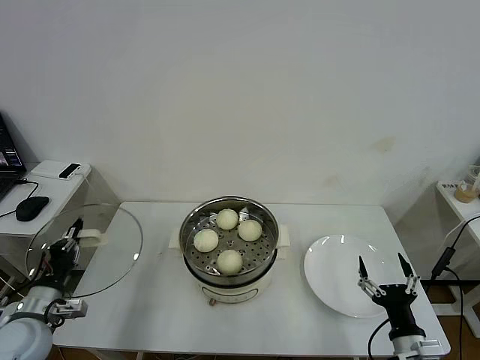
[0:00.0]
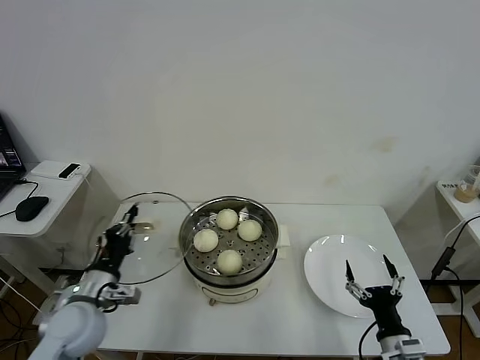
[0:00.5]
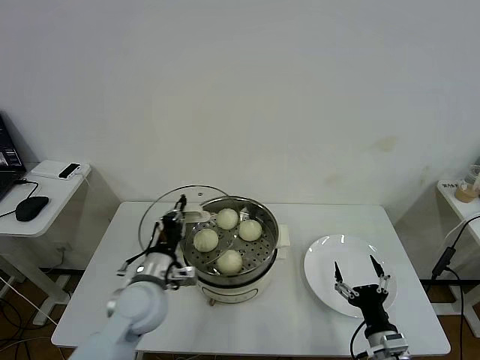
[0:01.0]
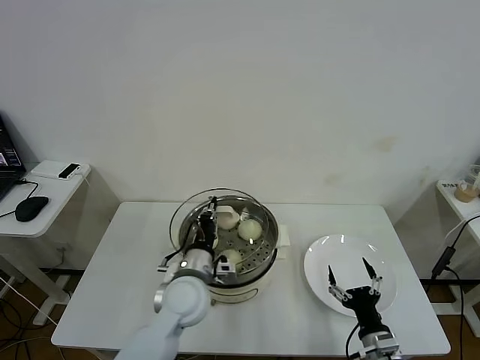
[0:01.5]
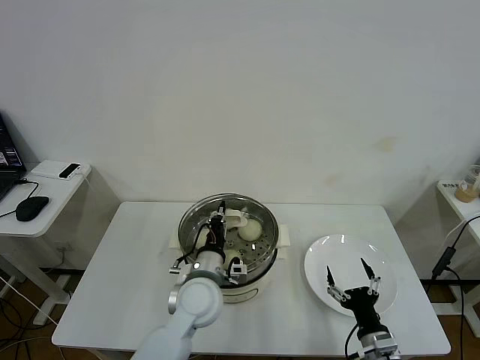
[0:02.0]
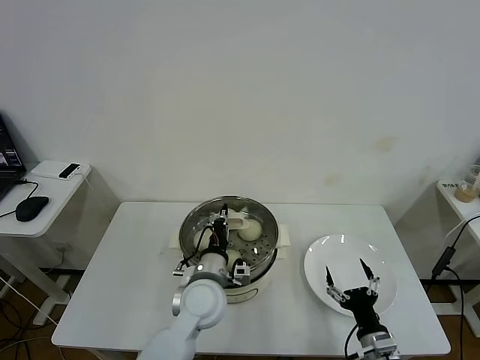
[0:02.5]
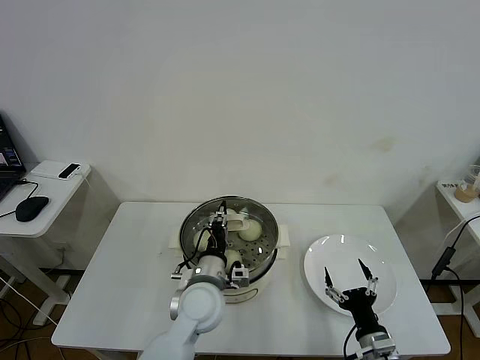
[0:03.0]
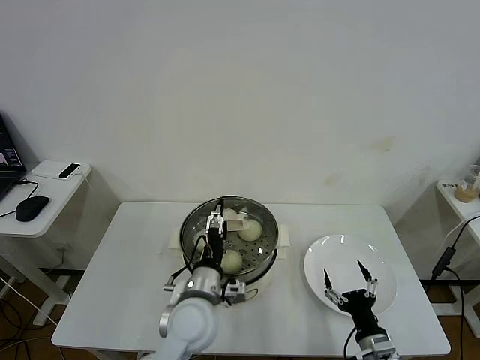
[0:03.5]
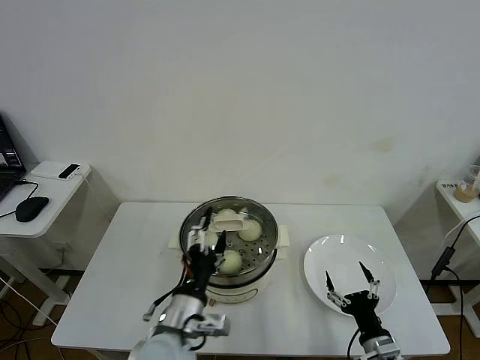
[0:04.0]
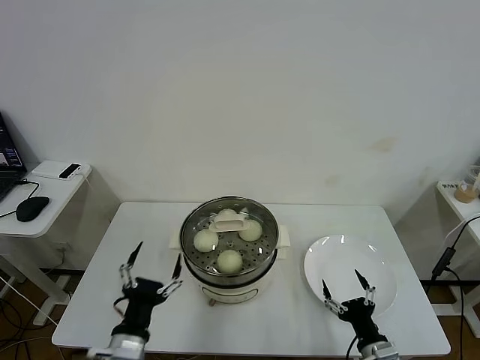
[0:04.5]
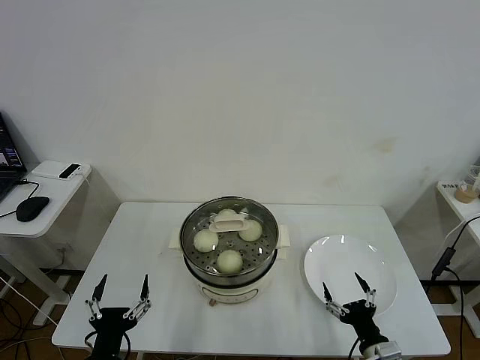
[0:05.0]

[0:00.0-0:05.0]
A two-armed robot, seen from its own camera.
Task of the whole recording: take steamed baozi put them in steamer then cover it.
Step, 0:00.0 to 0:03.0: Place the pot lid on the steamer with left gripper.
0:00.0 to 0:02.5: The right gripper changes place by some 5 cm; the left gripper goes some 35 cm to the right.
0:02.5 to 0:05.0: The left gripper moves backward and to the left, some 25 cm, and opens its fingers.

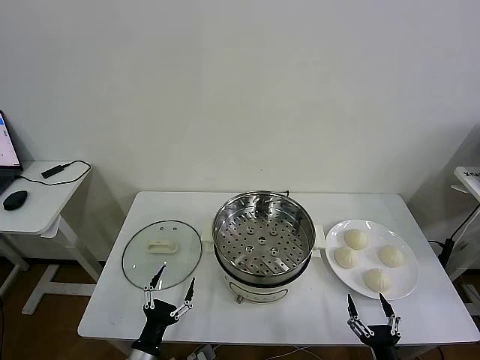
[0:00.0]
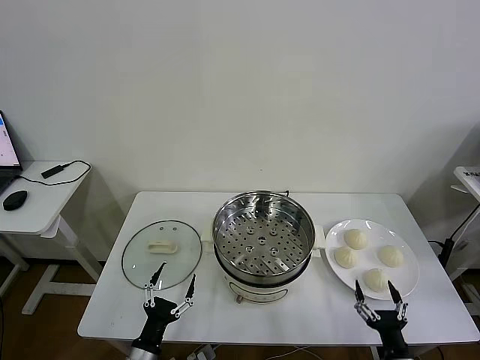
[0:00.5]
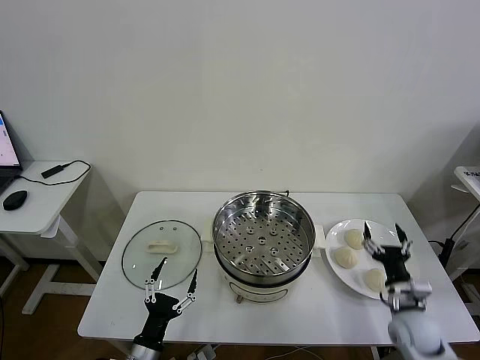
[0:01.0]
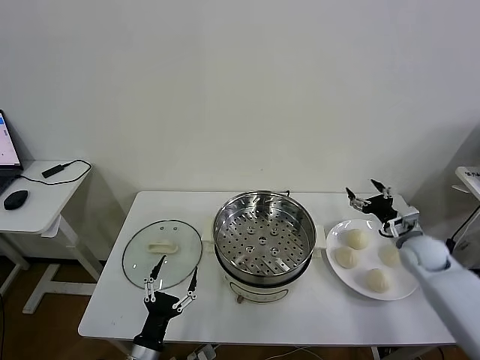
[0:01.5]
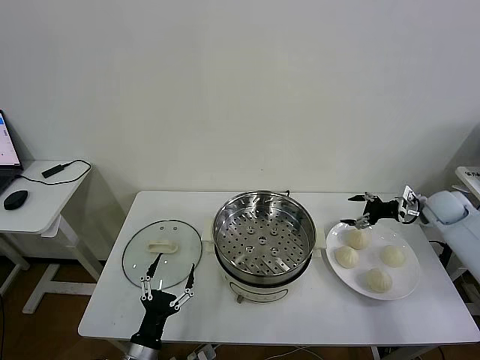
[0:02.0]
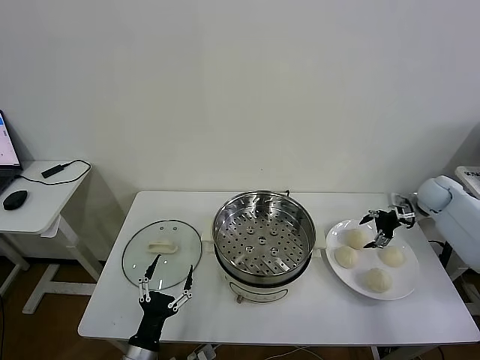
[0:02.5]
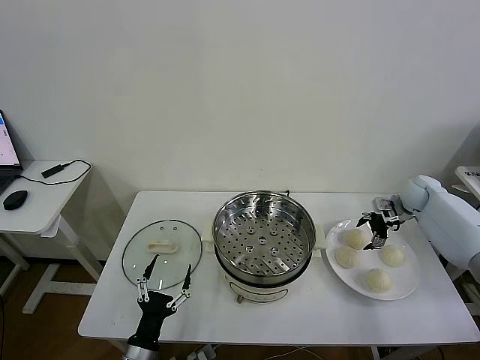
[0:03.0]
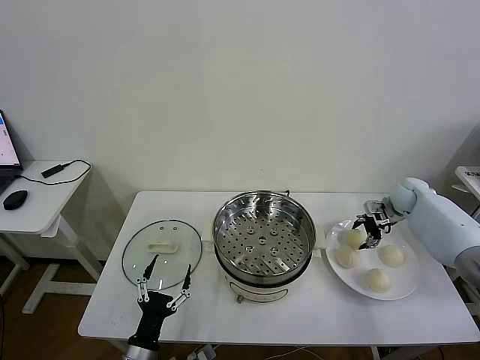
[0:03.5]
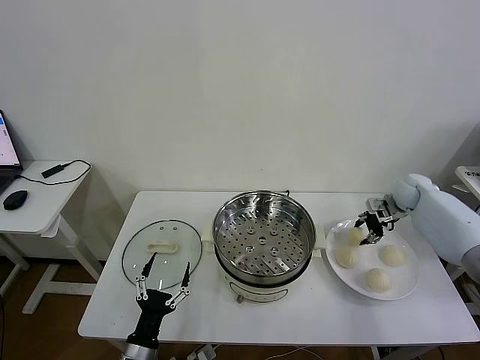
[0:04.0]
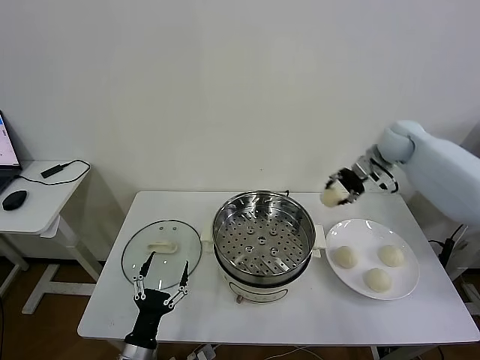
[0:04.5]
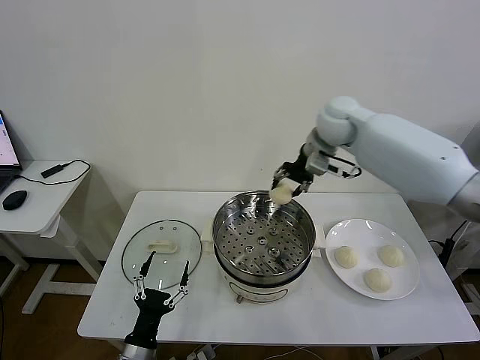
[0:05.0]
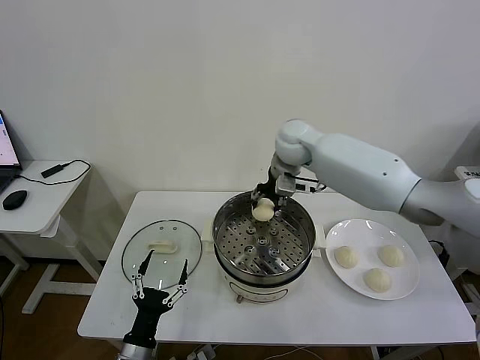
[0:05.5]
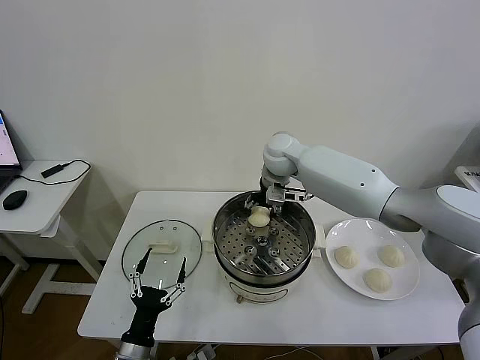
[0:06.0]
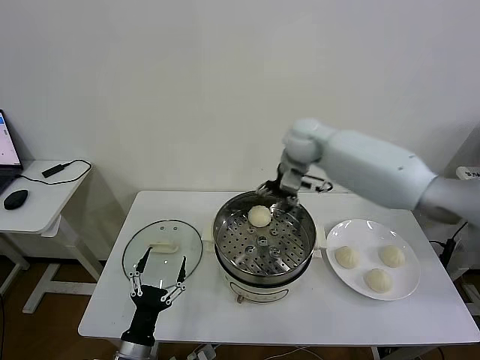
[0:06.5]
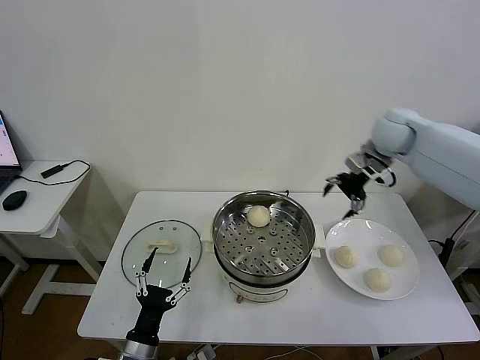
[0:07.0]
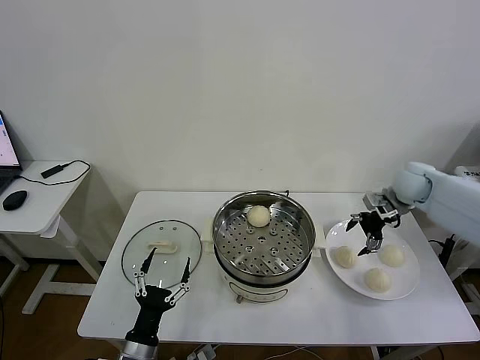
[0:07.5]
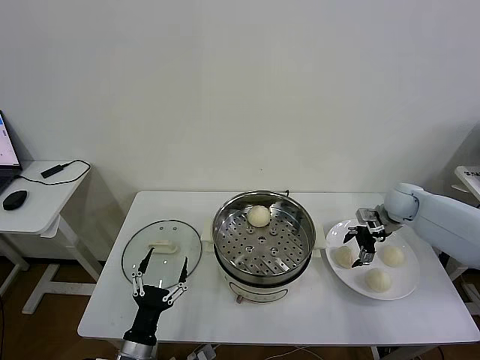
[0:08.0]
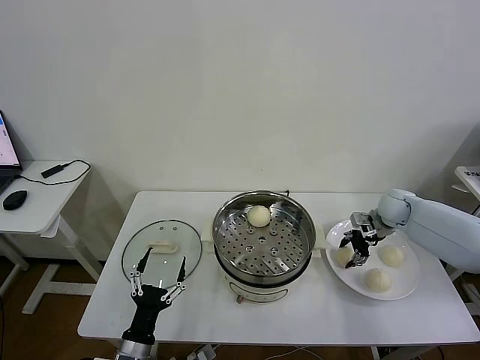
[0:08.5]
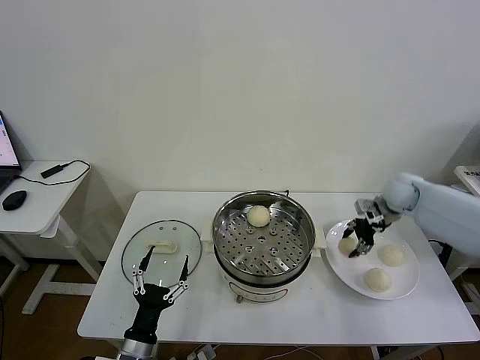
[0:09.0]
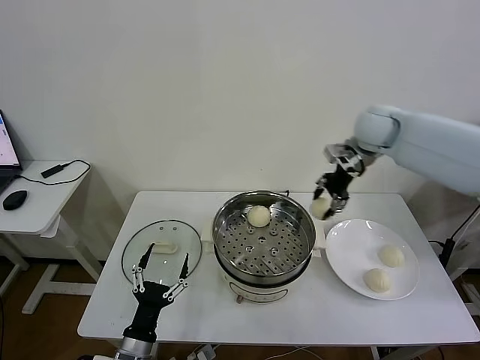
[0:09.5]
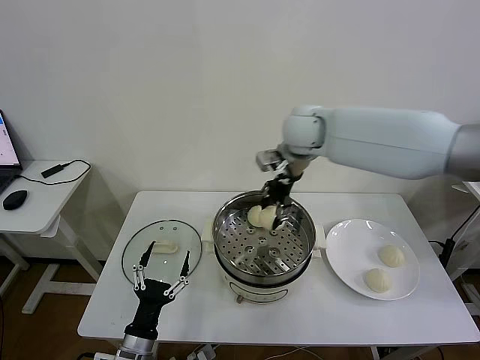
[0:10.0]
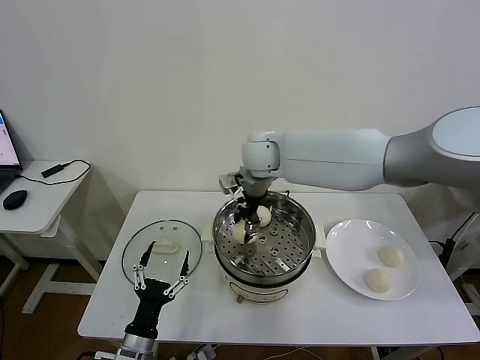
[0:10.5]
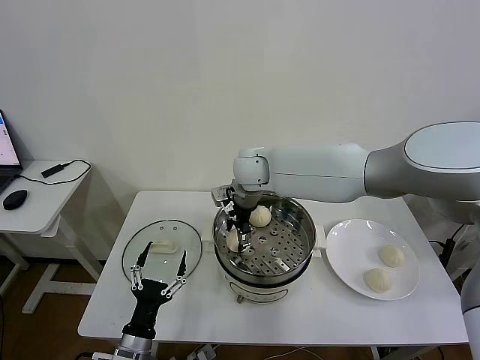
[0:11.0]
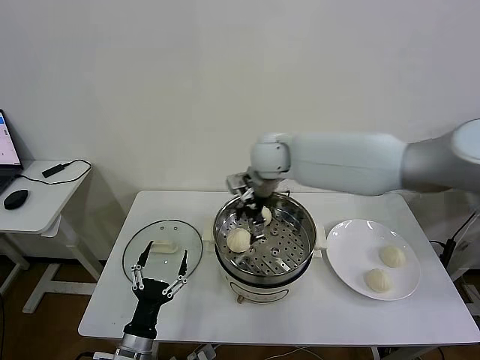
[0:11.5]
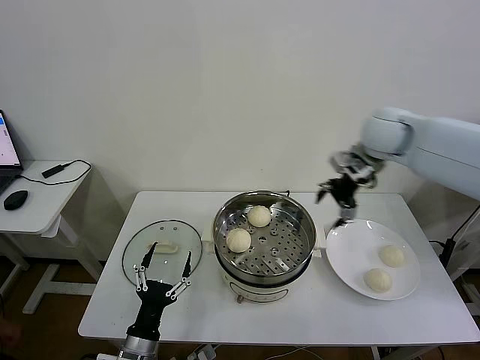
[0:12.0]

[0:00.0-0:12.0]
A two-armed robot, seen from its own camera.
Task of the whole recording: take steamed baozi put them in steamer then cover it.
Step, 0:00.0 to 0:03.5: Grasp the baozi in the plate with right gripper.
Step, 0:04.0 to 0:06.0: Place the baozi on the steamer with right gripper.
Step, 0:06.5 to 0:08.5: Grasp the baozi in the plate with right gripper.
Step, 0:09.0 to 0:11.0: Place the baozi on the steamer with right gripper.
0:02.0 to 0:04.0: The right gripper goes some 10 cm forward and to the left, and closes up.
0:04.0 to 0:06.0: The right gripper goes about 35 cm to the left, and opens.
0:06.0 to 0:08.0: The right gripper goes approximately 30 cm to the right, and opens.
0:08.0 to 0:10.0: The right gripper goes roughly 35 cm to the left and upward, and closes its fingers.
0:10.0 to 0:12.0: The right gripper goes some 20 cm to the right, and opens up.

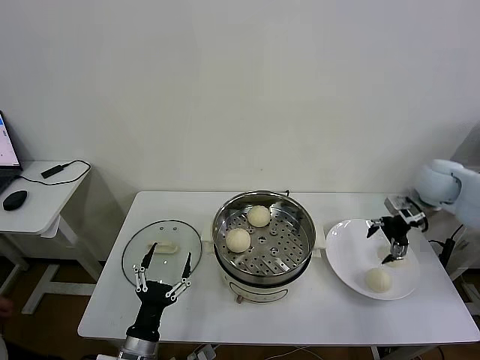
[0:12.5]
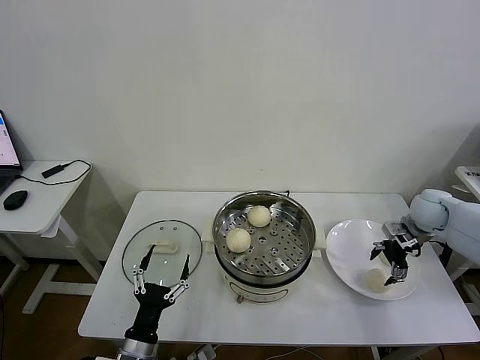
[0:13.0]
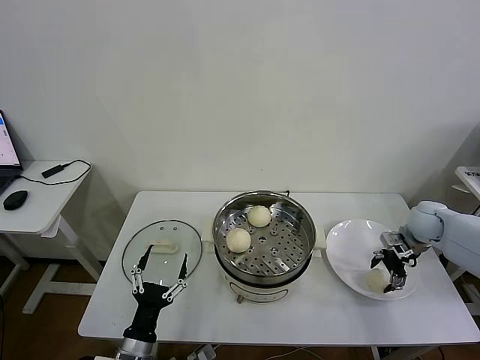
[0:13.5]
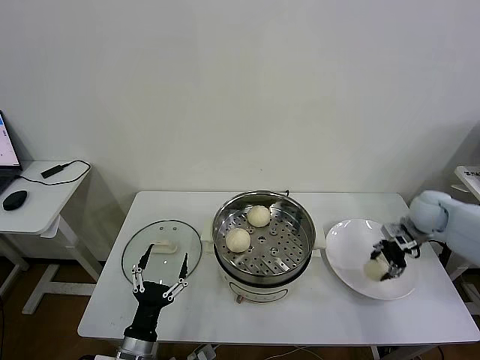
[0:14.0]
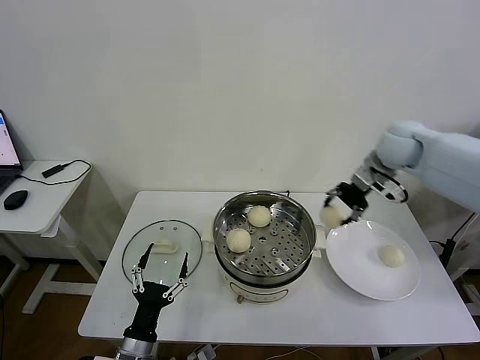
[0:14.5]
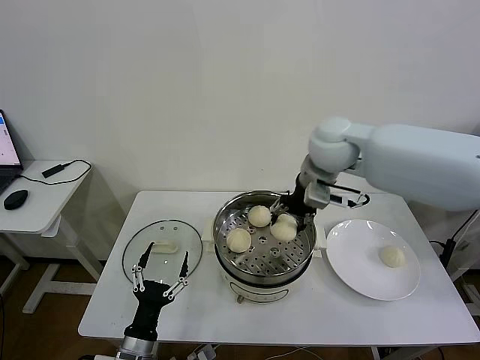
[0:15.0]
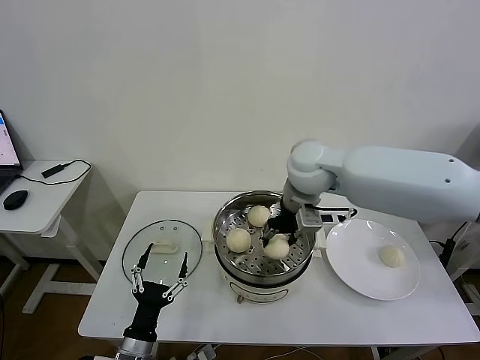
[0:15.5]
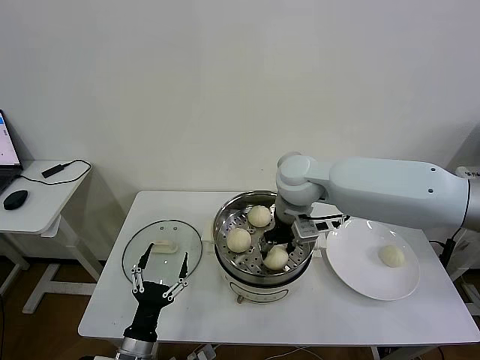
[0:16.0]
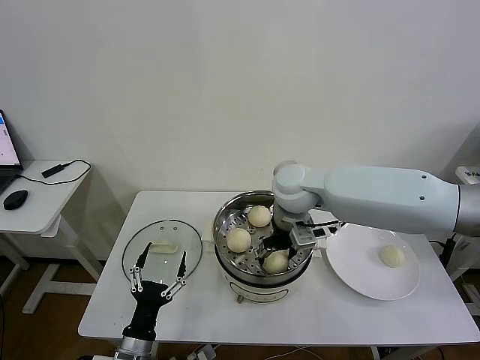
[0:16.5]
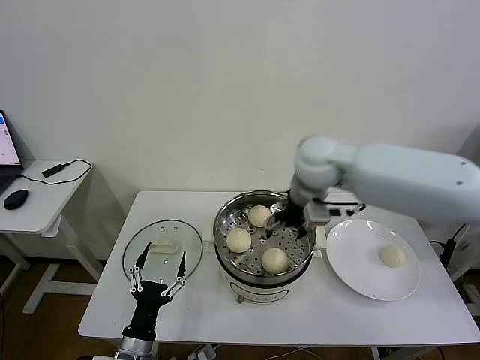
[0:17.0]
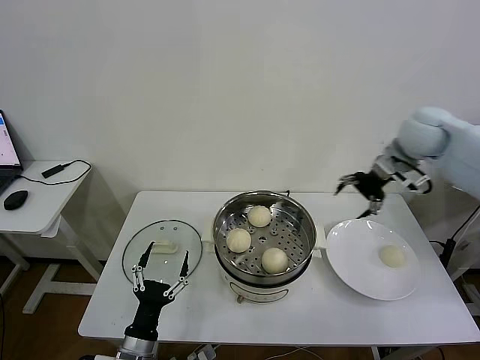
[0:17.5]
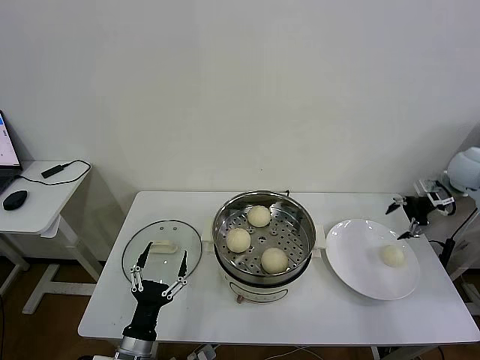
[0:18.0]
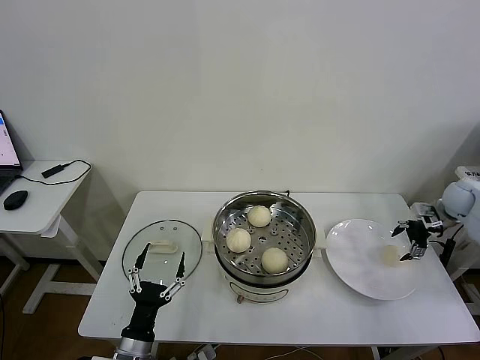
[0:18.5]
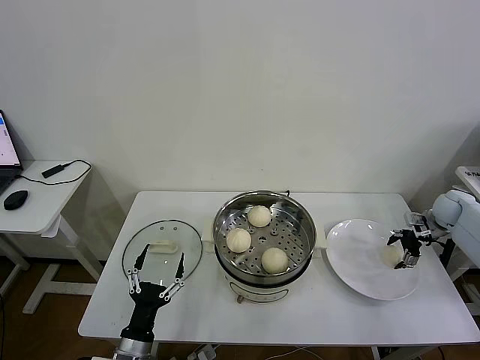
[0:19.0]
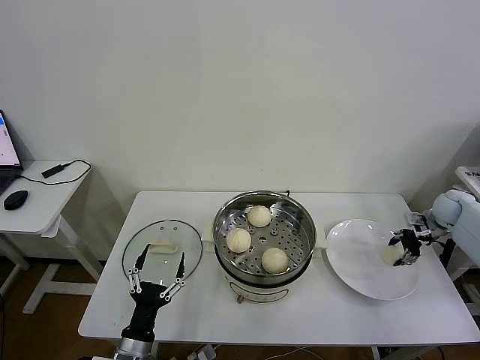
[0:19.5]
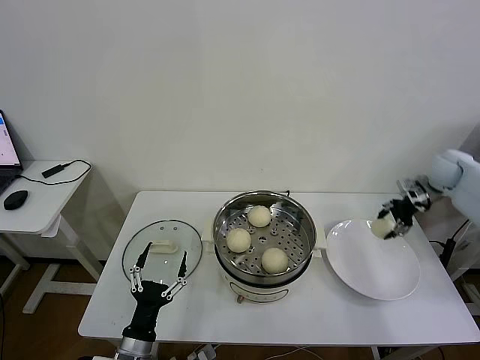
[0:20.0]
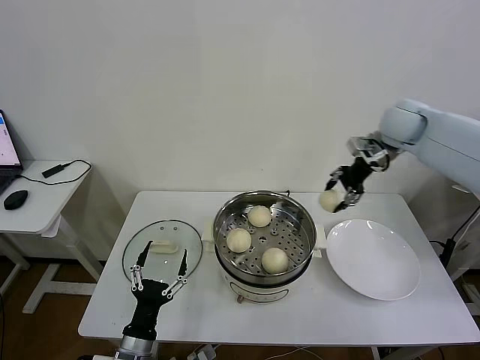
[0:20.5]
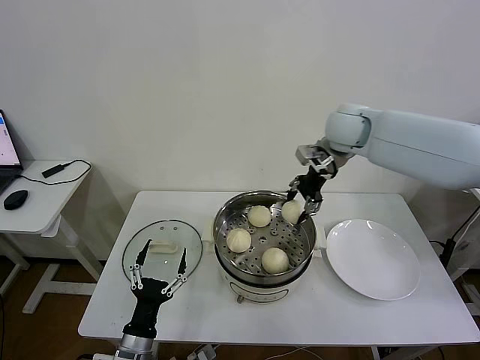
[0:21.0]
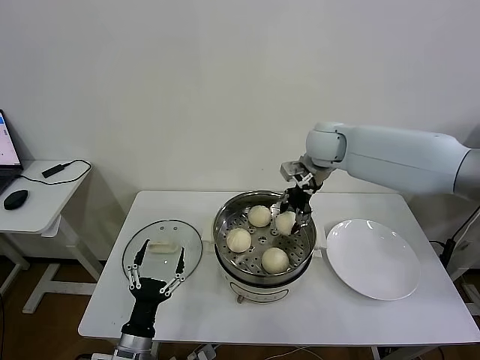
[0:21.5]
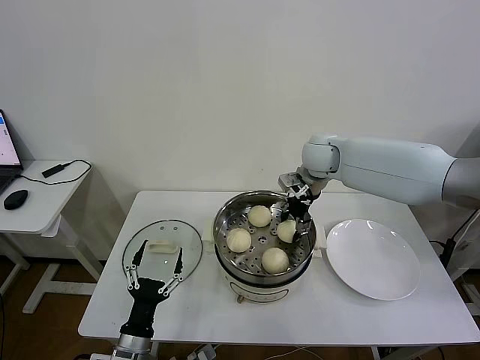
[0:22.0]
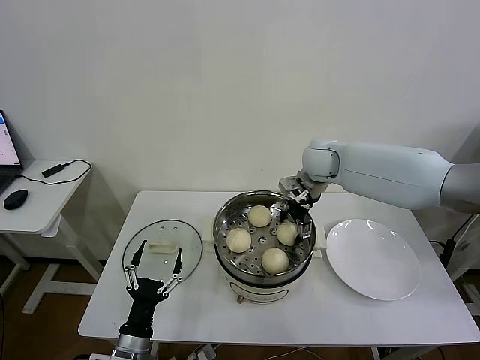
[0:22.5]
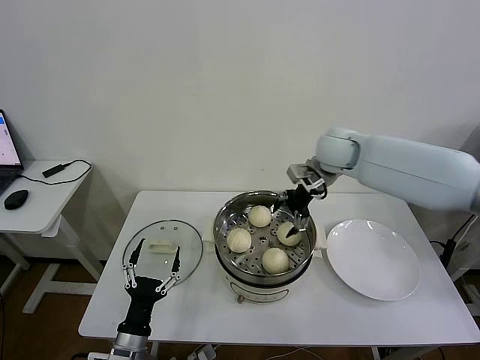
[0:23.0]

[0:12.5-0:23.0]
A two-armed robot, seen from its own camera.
Task of the whole recording: take steamed baozi put them in steamer then cover it.
Step, 0:14.0 to 0:16.5: Place the baozi on the steamer with right gripper.
Step, 0:17.0 to 0:19.5: Grasp the baozi in the plate with right gripper.
Step, 0:20.0 to 0:22.5: Place the baozi on the steamer with right gripper.
0:12.5 to 0:14.5: The right gripper is displaced to the left and upward by roughly 20 cm, and closes up.
0:14.5 to 0:16.5: The right gripper travels to the left by roughly 20 cm, and opens its fingers.
0:16.5 to 0:19.0: The right gripper heads to the right, covering approximately 40 cm.
0:19.0 to 0:21.0: The right gripper heads to the left and upward, covering roughly 40 cm, and closes its fingers.
0:21.0 to 0:23.0: The right gripper opens its fingers.
